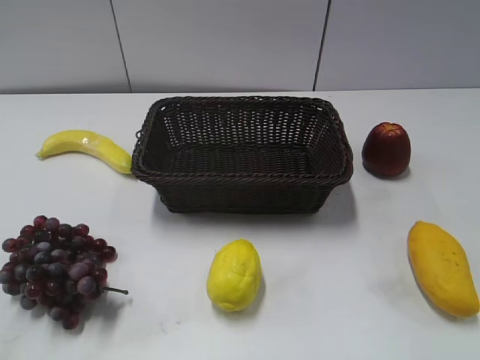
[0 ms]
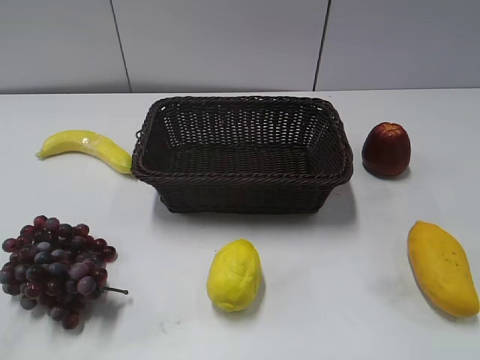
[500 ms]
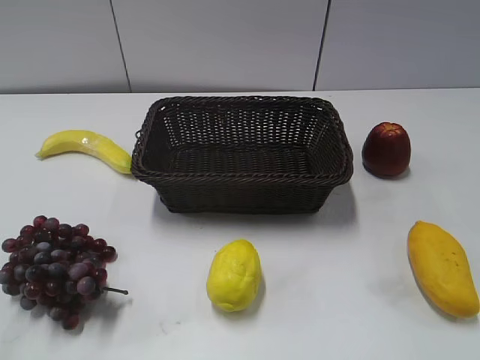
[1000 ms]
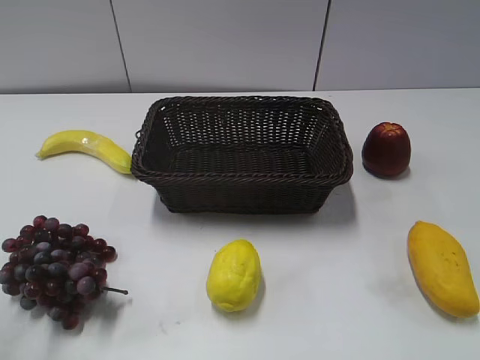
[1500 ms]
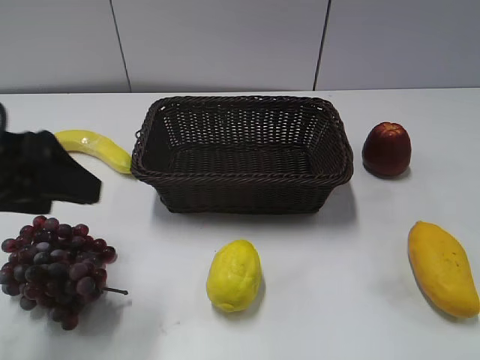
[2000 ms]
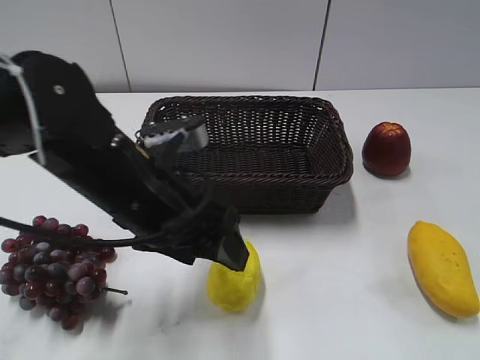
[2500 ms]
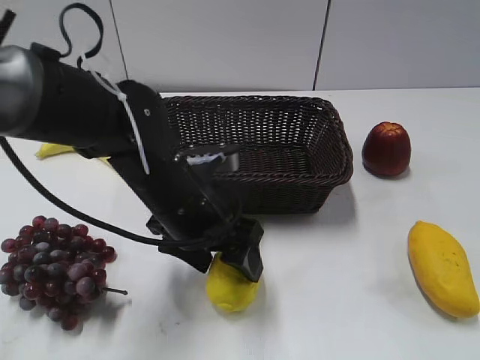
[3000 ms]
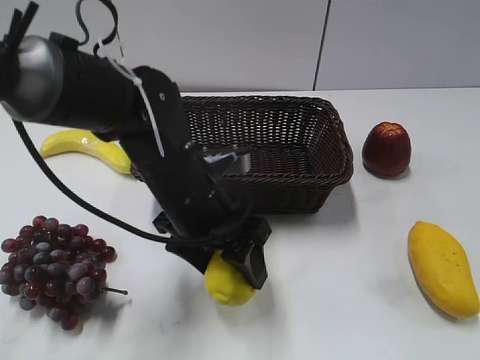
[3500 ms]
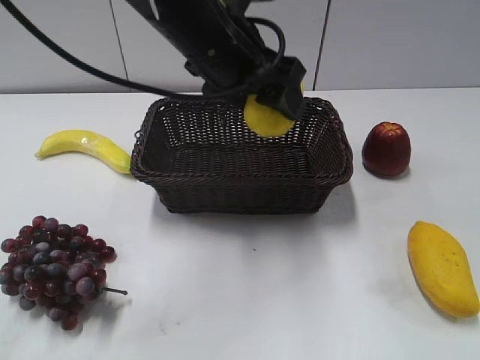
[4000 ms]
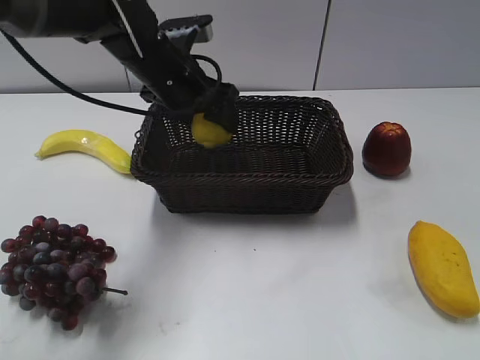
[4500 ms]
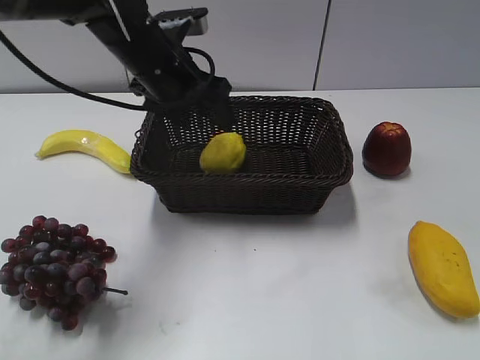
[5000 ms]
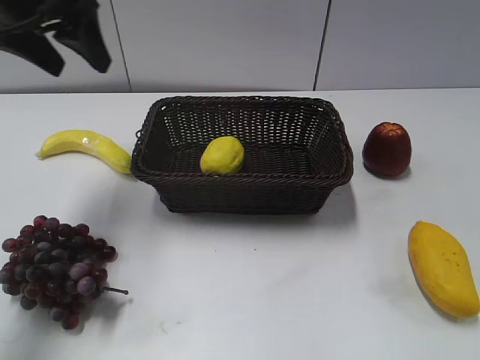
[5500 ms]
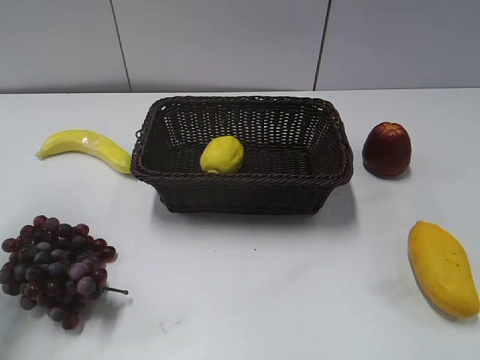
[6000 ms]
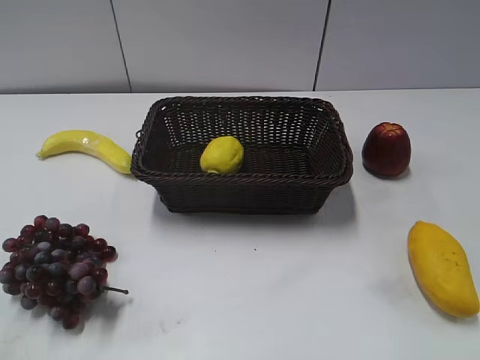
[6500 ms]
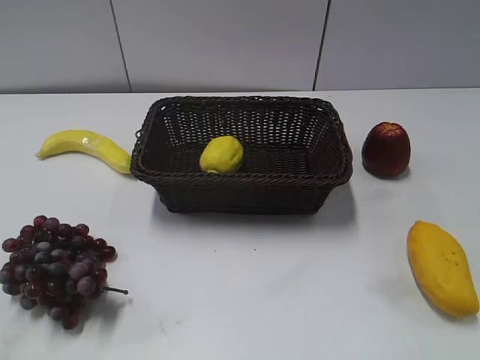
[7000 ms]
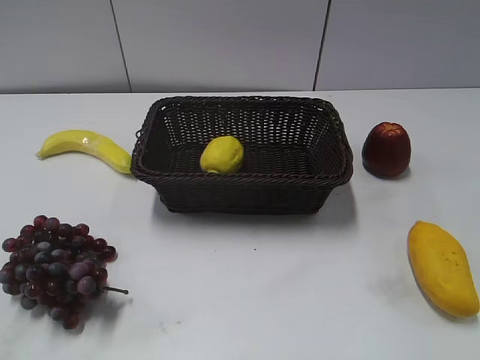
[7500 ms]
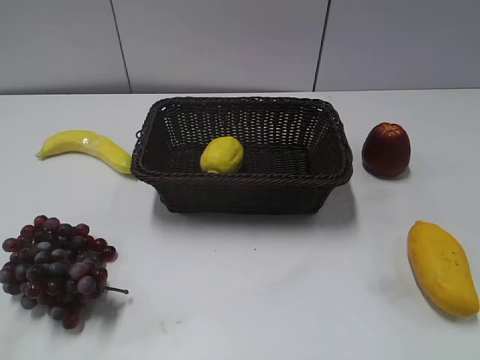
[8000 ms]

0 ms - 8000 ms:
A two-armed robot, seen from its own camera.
Step, 2000 ms - 3500 ms: Grasp the lemon with left gripper.
Step, 4000 ms - 4500 ms: Place the lemon in the basket with left gripper.
2000 ms - 4000 ms: The left gripper travels to the right and forward by about 25 cm, and opens, then closes again.
4000 ms - 6000 ms: The left gripper goes about 30 cm to the left, and opens, then closes again.
6000 ms - 8000 ms: The left gripper travels backward by about 30 cm.
